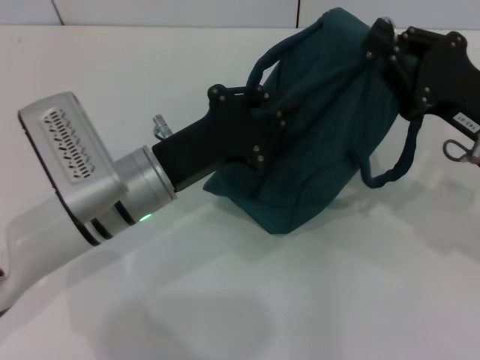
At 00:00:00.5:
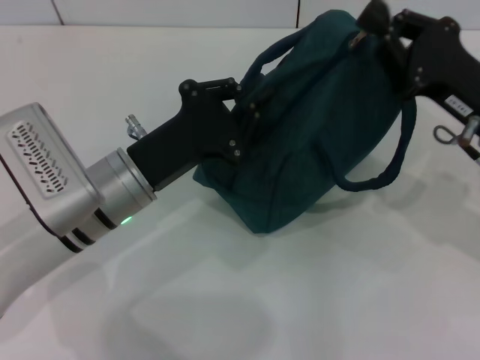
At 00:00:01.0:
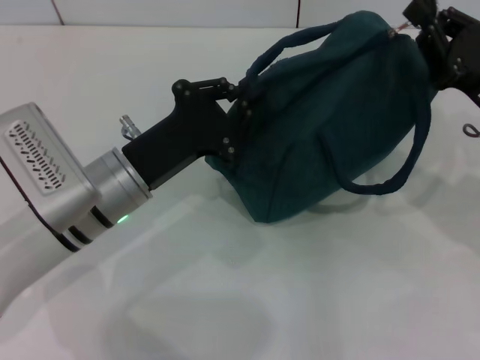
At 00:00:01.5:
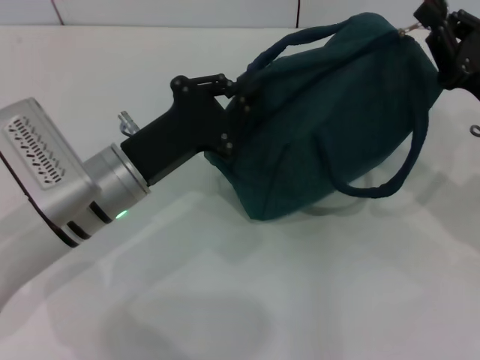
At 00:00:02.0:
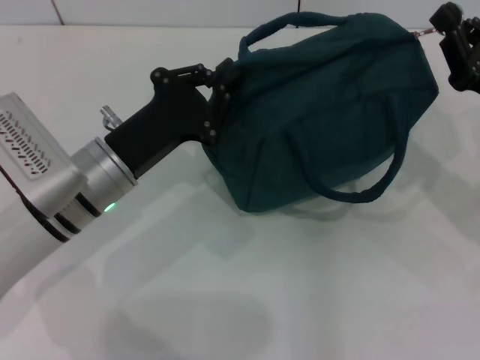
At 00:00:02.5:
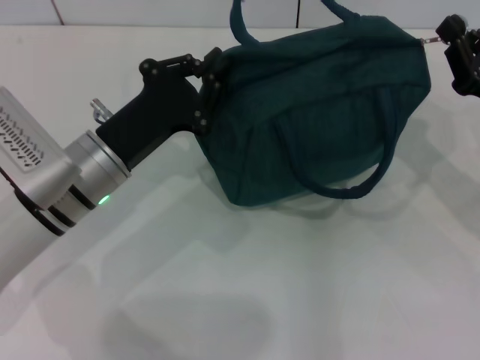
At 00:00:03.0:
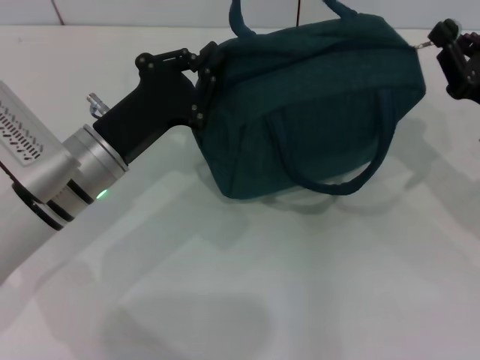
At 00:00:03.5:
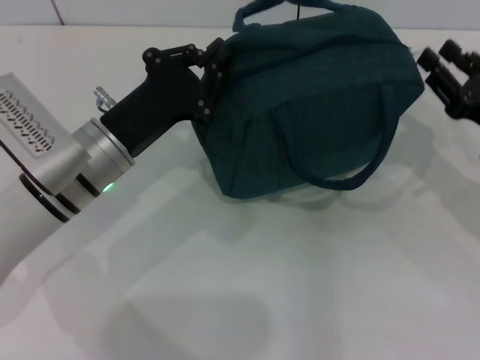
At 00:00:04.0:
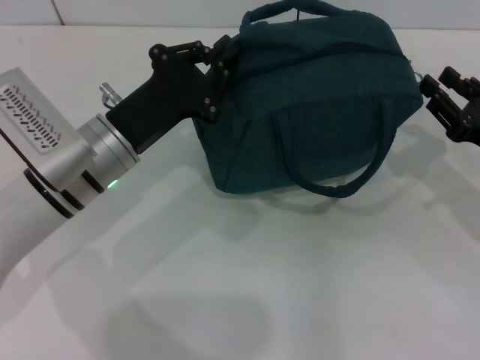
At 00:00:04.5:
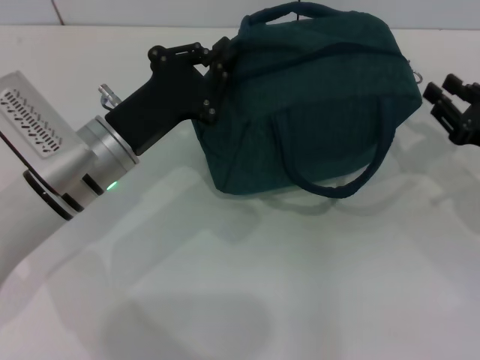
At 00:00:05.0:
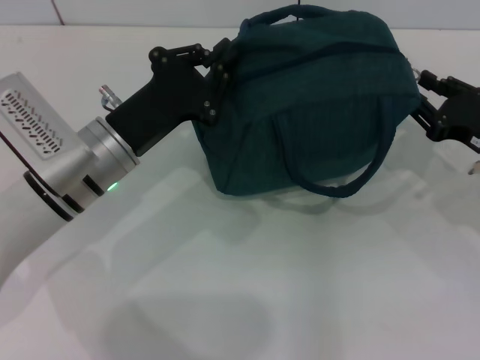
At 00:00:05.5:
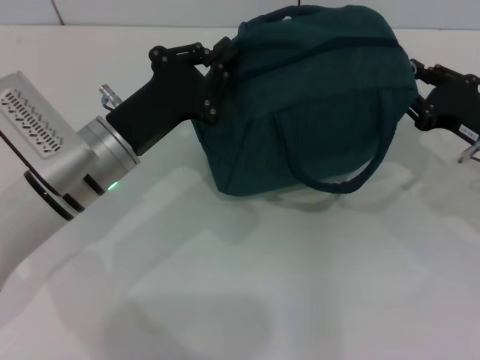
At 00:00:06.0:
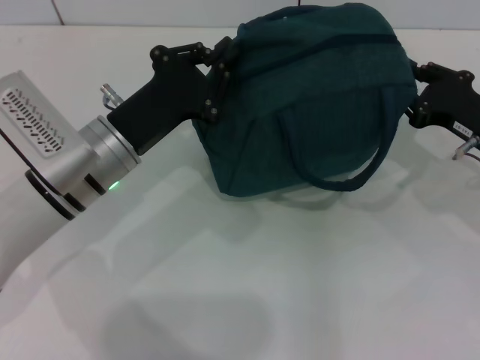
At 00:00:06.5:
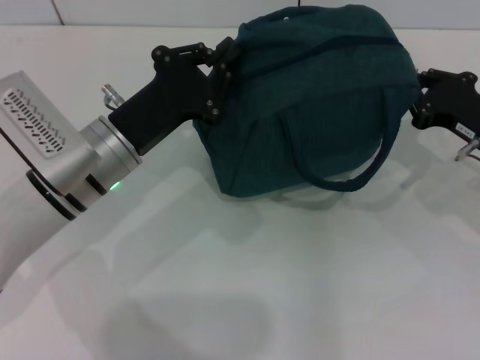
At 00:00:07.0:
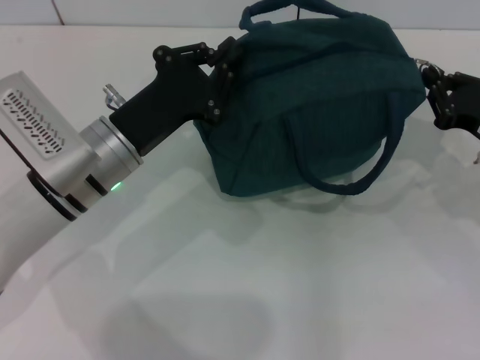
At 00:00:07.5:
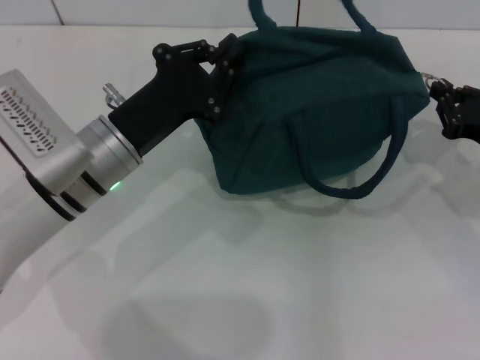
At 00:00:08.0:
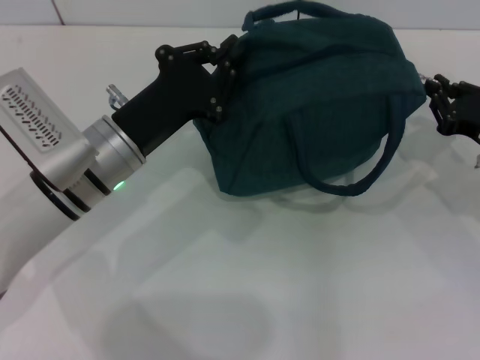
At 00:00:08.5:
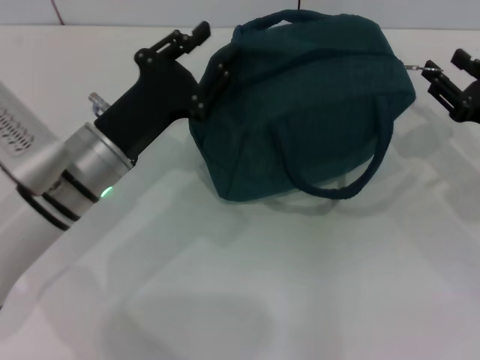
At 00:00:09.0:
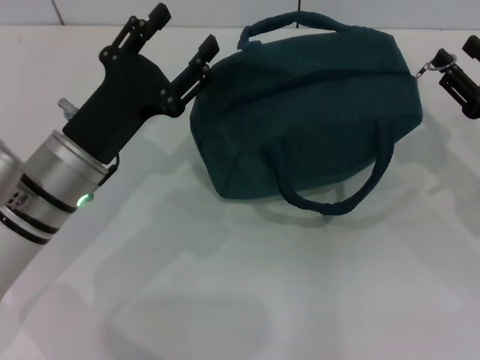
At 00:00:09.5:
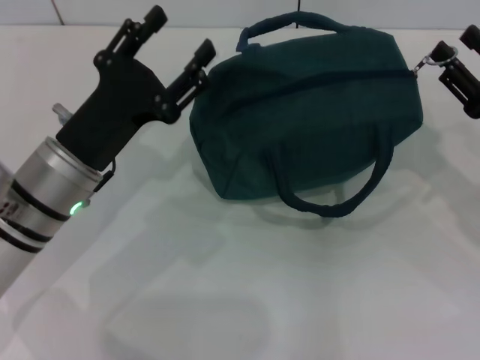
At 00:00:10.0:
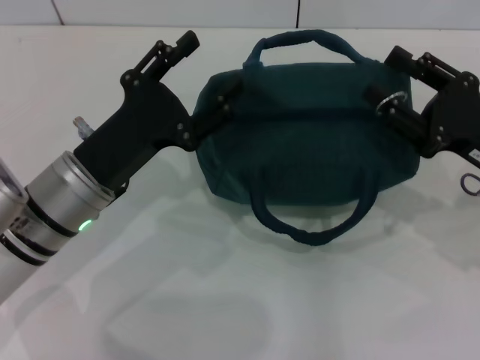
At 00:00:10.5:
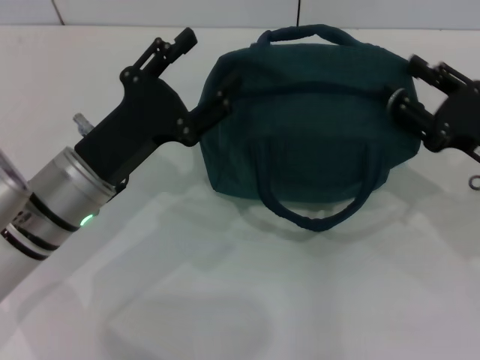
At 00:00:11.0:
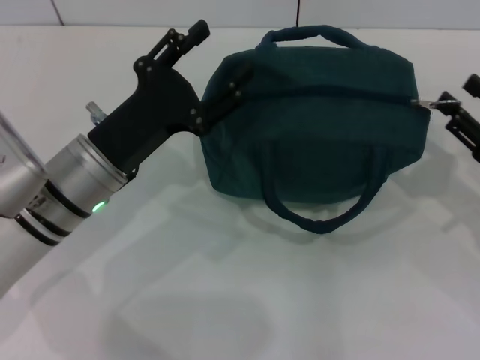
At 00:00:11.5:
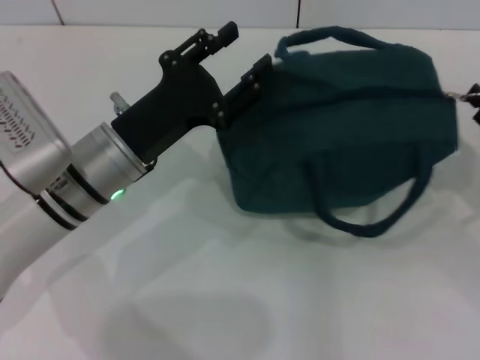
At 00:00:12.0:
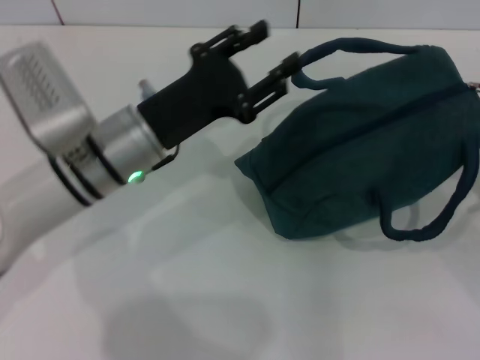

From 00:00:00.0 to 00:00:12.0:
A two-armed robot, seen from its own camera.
From 00:00:02.0 to 00:00:04.0: The right gripper opens up.
From 00:00:04.0 to 00:00:08.0: The grippers stay close to where they were, moving slightly.
From 00:00:08.0 to 00:00:10.0: The right gripper changes place by some 5 cm, and opens. Meanwhile the left gripper opens its fingers.
From 00:00:10.0 to 00:00:12.0: The right gripper shifts about 10 cm to the right. The left gripper changes place by roughly 5 cm.

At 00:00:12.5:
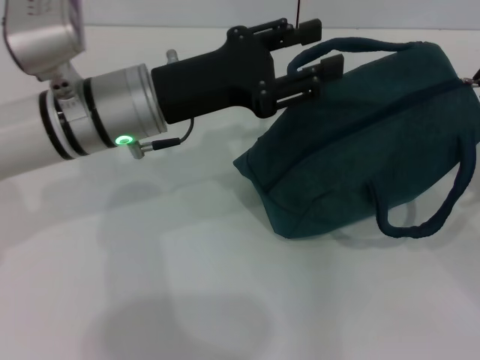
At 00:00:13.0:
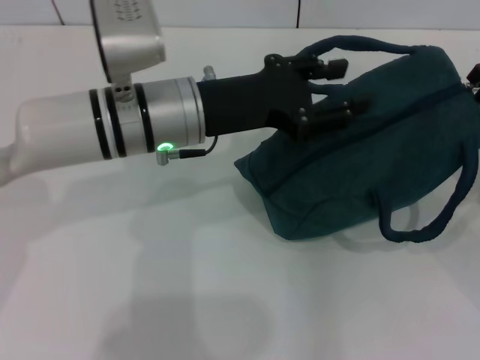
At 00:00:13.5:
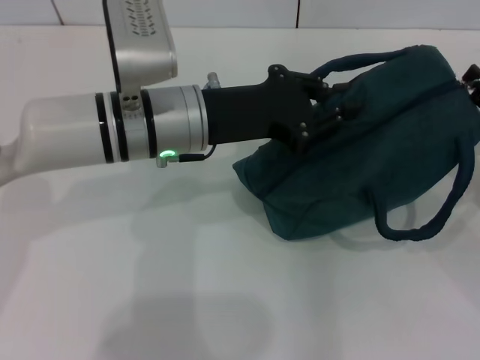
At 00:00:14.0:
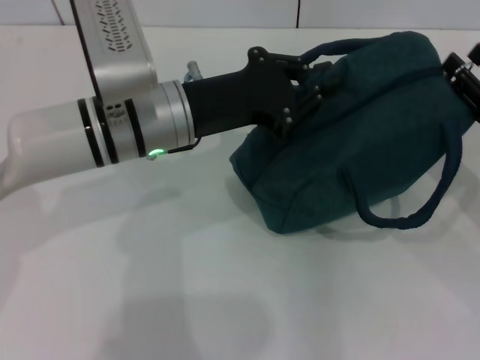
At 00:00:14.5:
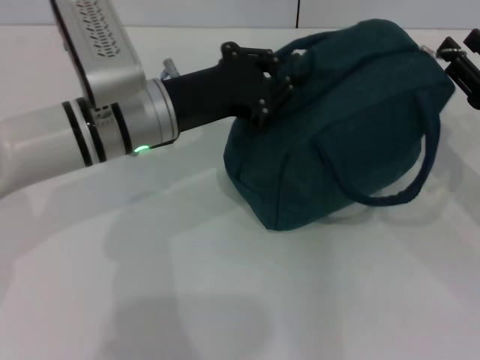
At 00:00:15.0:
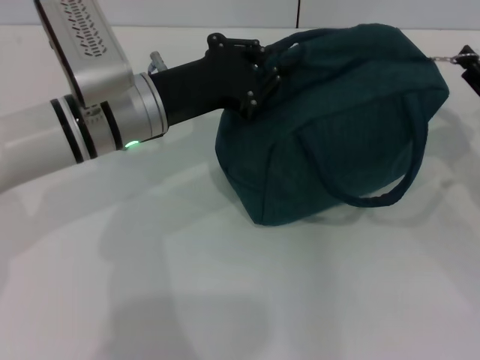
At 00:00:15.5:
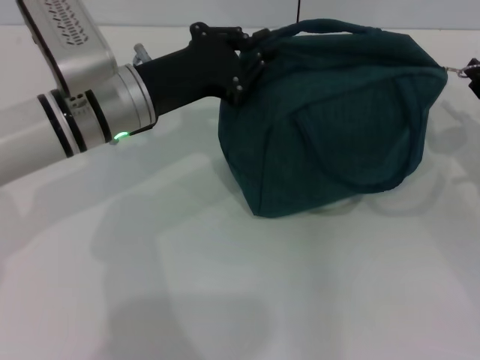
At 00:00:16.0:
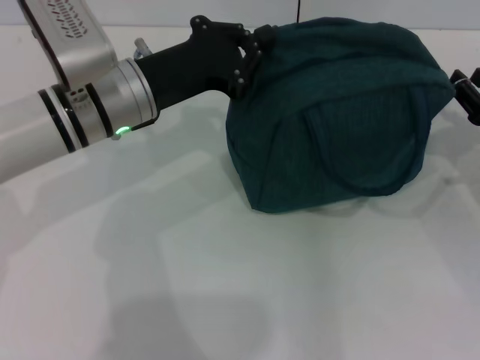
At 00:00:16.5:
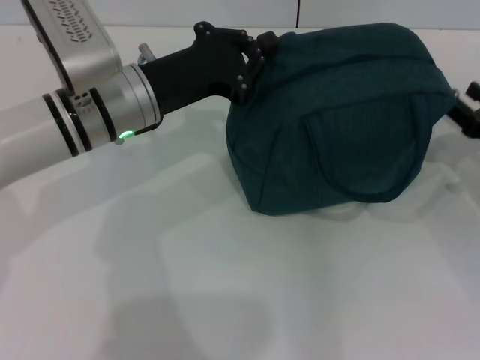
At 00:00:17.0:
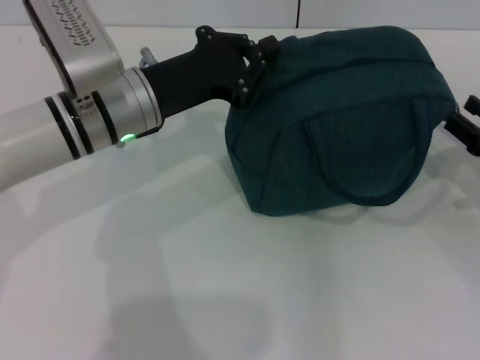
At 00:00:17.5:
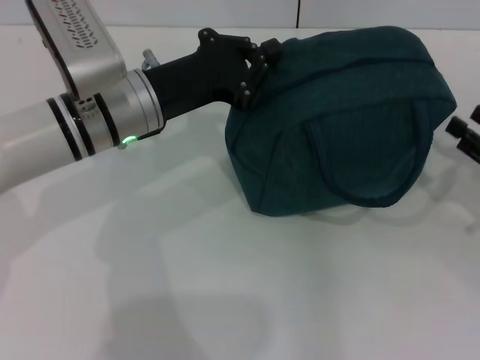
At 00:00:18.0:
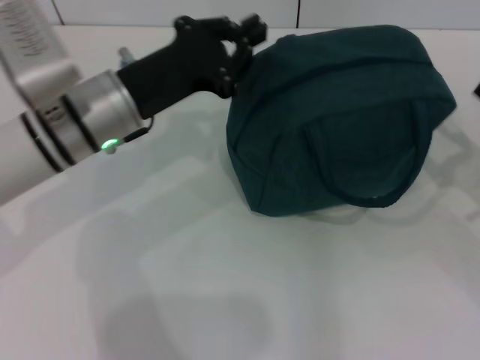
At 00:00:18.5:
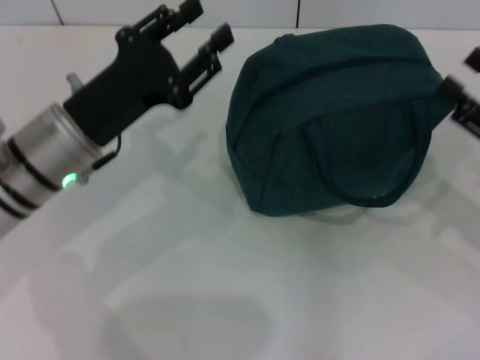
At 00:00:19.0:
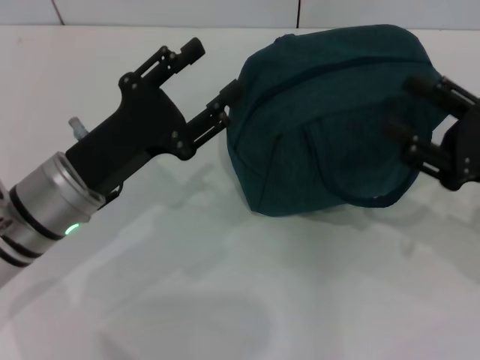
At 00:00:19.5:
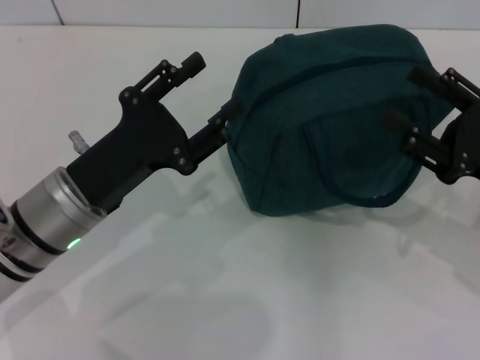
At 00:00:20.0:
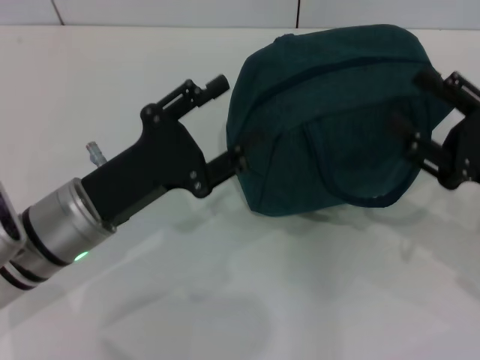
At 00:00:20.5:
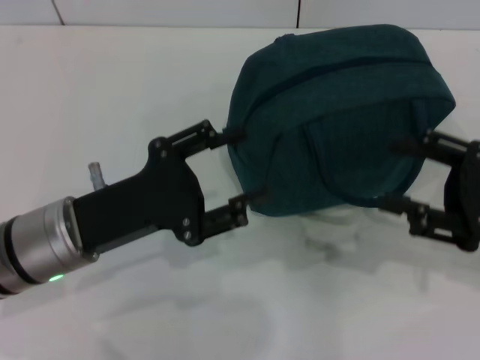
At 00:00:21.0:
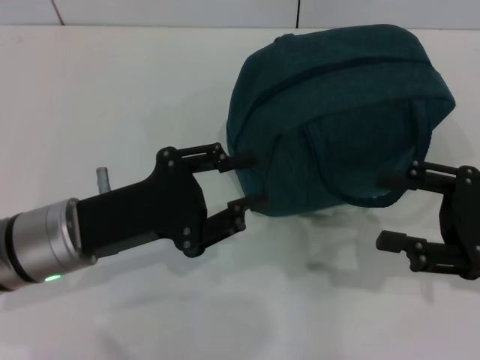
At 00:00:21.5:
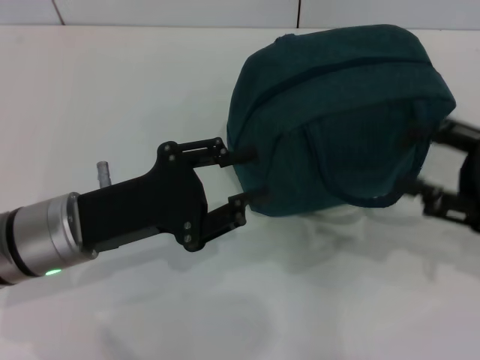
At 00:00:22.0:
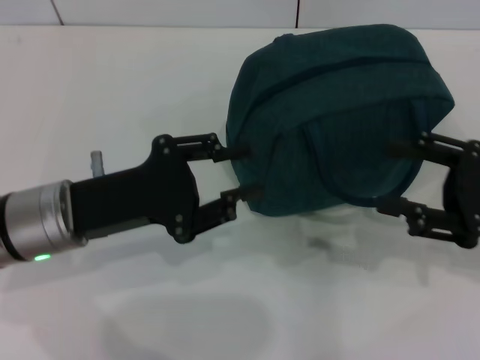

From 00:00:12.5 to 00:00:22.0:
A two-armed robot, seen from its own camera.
Step, from 00:00:12.5 to 00:00:17.5: Zip up the lunch bag with your right hand.
From 00:00:12.5 to 00:00:14.5: The left gripper closes its fingers.
From 00:00:14.5 to 00:00:16.5: The grippers stay close to where they were, moving slightly.
From 00:00:16.5 to 00:00:18.0: The right gripper moves roughly 5 cm.
From 00:00:18.0 to 00:00:20.0: The right gripper travels to the left by approximately 5 cm; the left gripper travels backward by roughly 10 cm, and opens its fingers.
